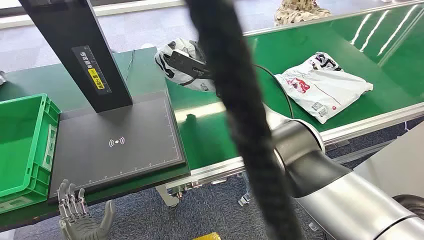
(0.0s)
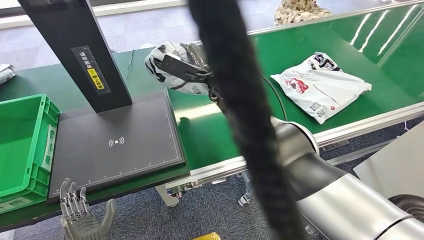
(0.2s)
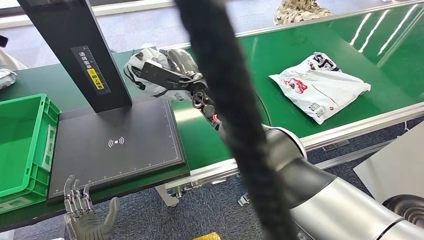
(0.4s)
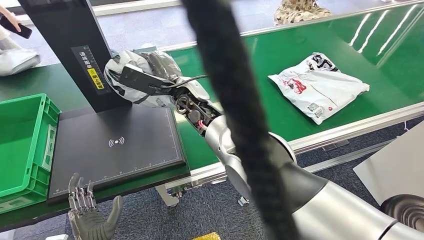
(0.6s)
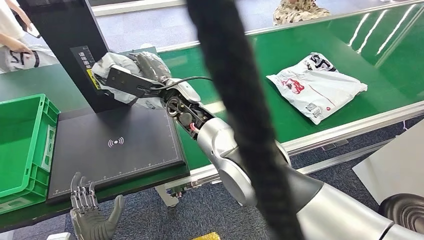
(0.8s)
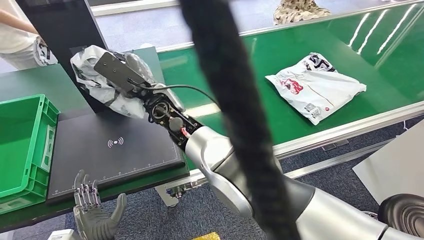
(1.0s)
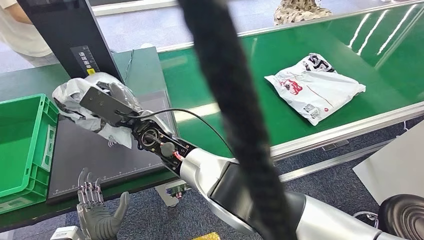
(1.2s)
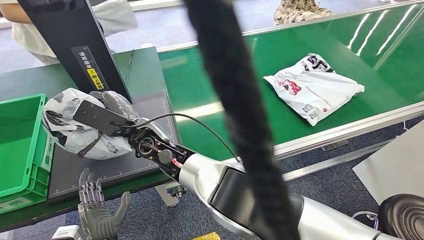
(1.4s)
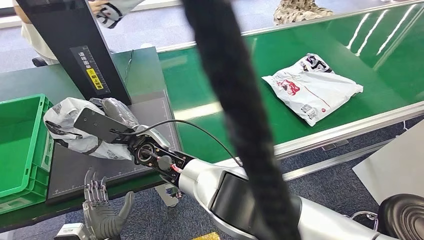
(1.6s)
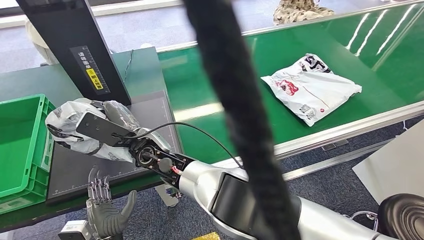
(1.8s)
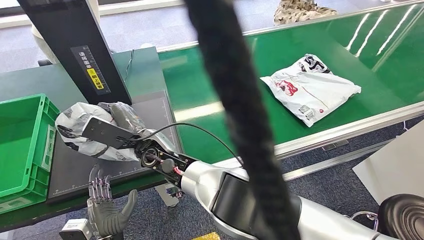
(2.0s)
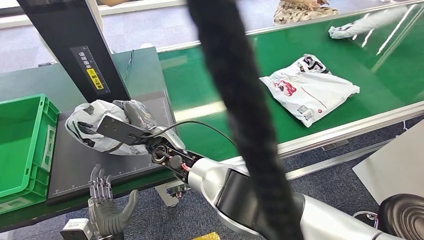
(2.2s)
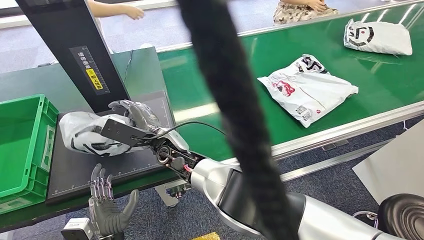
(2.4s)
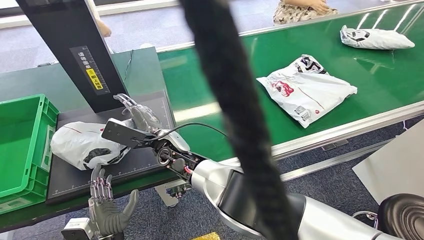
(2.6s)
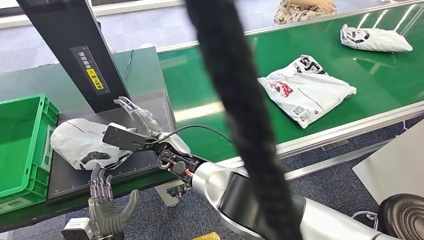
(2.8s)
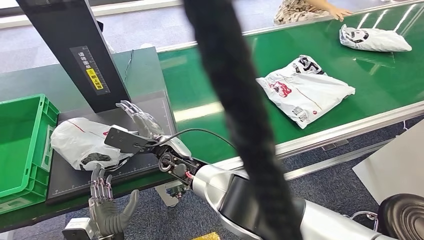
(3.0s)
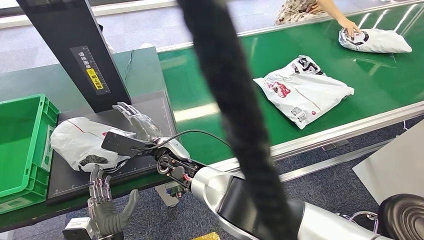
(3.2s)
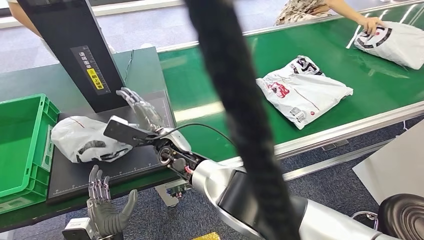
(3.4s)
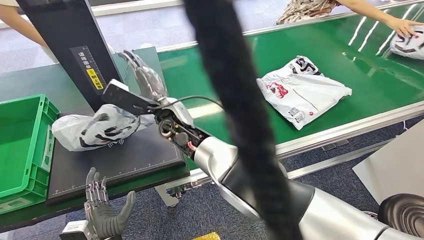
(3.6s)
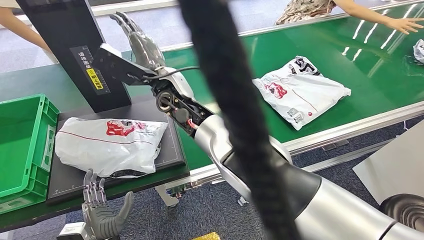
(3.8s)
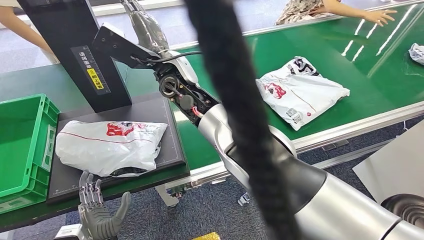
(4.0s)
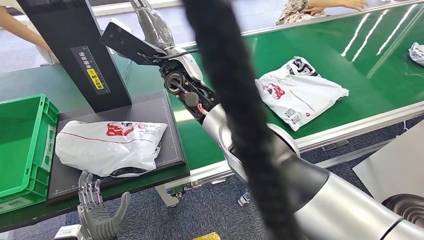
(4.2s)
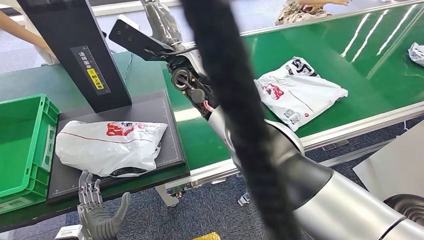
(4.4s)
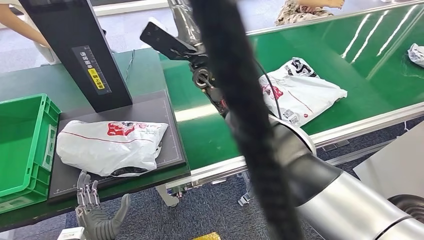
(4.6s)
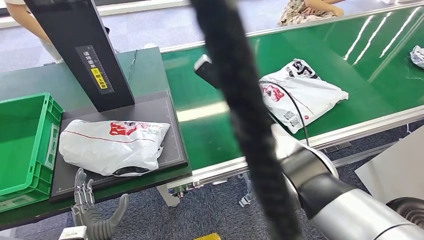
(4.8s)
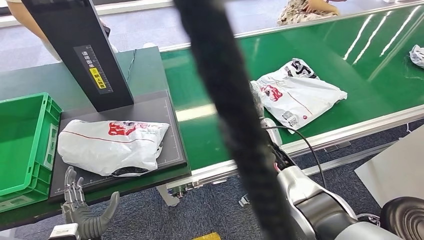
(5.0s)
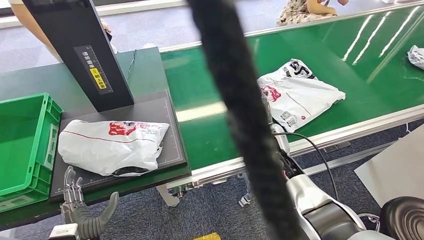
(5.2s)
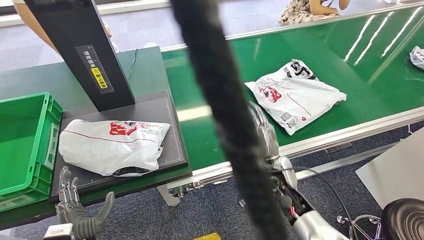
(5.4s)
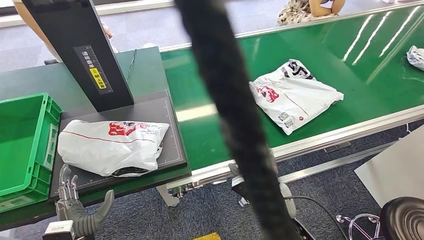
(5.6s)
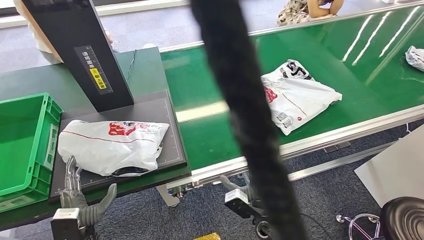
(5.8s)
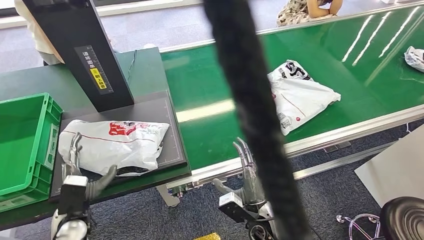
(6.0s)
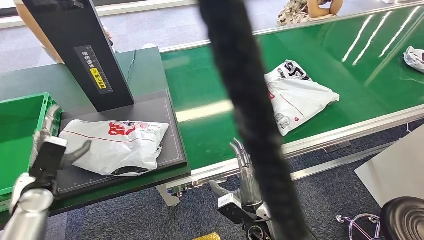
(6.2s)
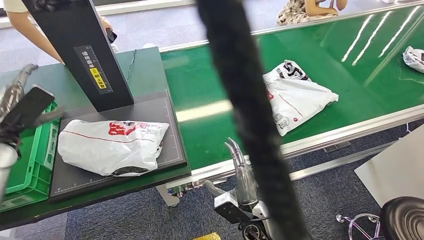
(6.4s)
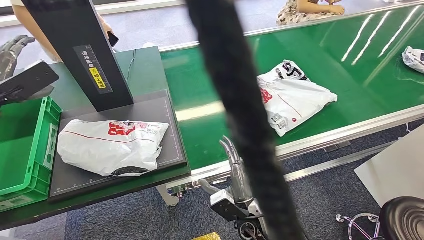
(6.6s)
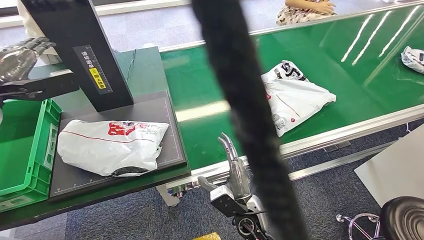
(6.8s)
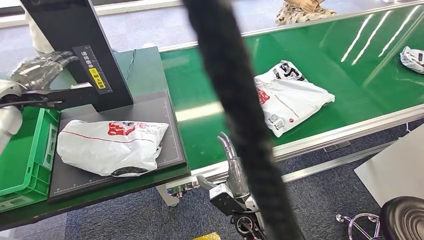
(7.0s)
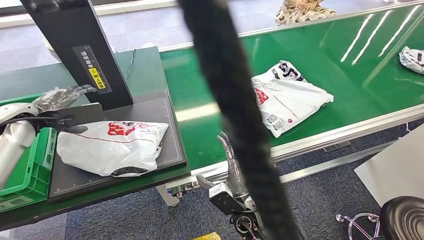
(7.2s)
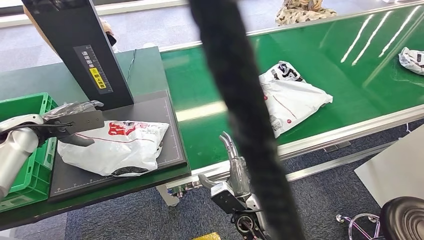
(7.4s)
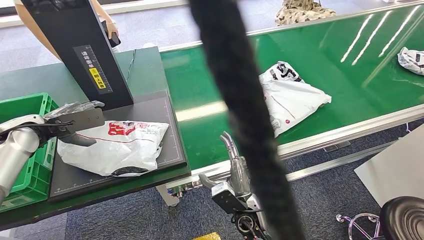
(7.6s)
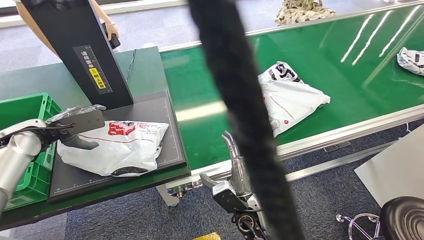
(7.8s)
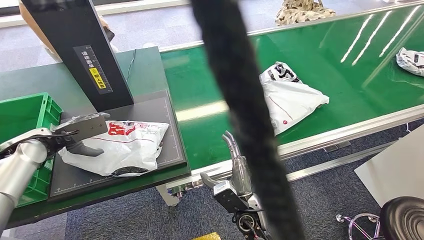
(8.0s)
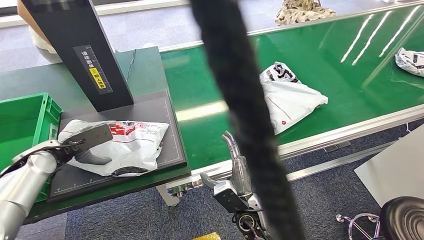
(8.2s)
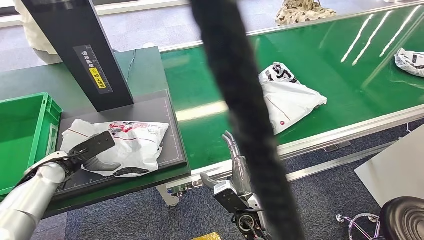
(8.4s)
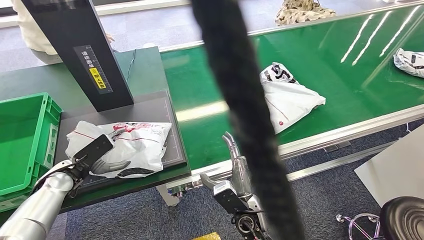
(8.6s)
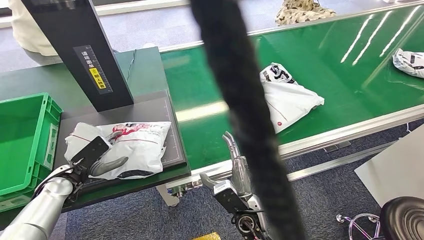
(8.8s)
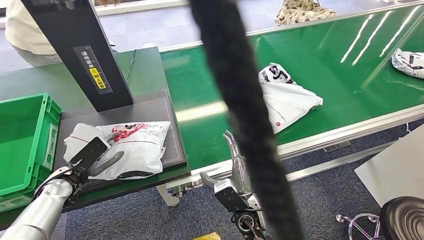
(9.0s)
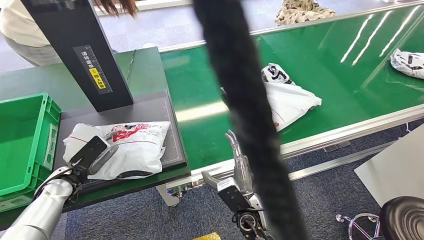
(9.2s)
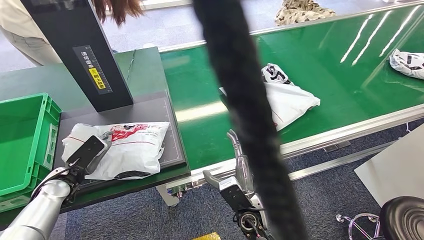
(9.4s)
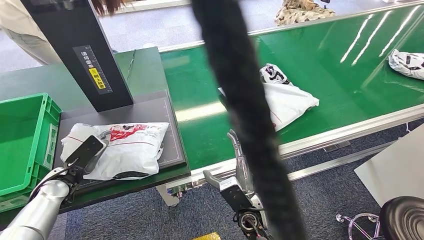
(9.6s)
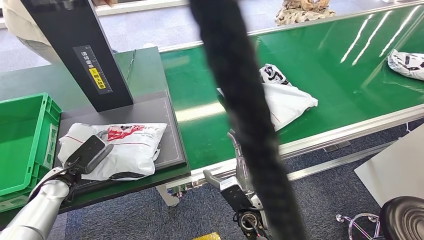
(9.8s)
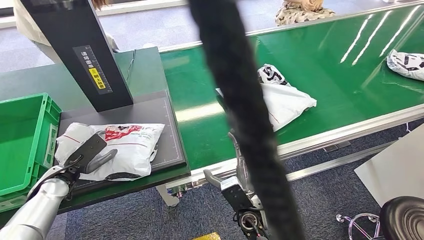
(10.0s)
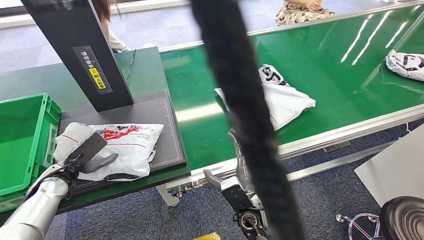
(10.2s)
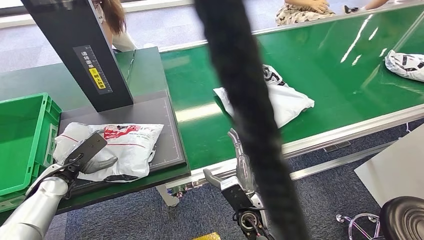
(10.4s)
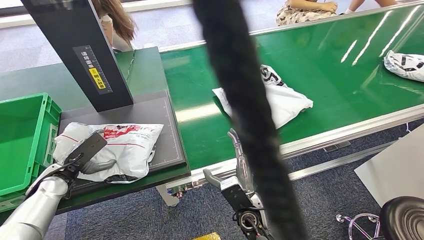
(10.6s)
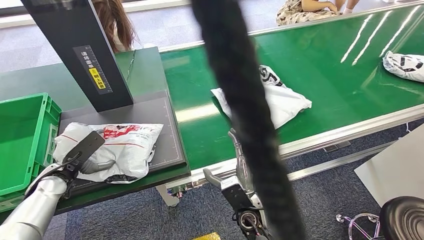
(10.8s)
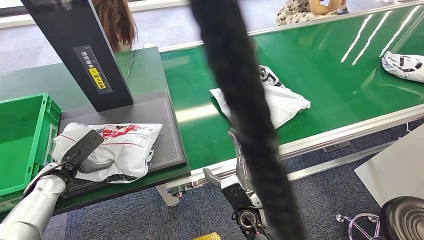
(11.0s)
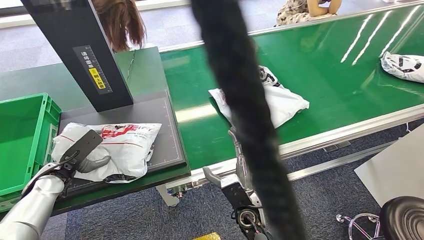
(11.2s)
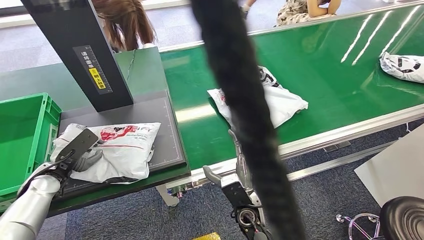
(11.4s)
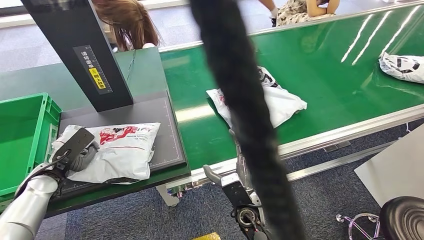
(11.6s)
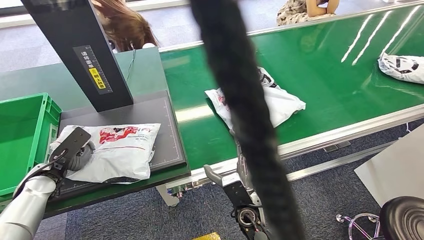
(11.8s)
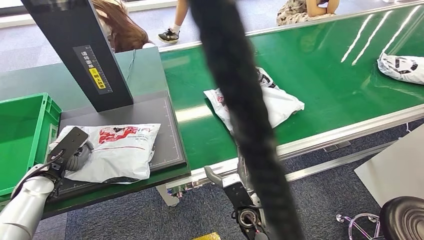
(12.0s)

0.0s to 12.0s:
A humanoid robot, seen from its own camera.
Step, 0.0s to 0.4s: Pick up the package from the conveyor belt.
Step, 0.6s to 5.0s: Place the package onto the inbound machine.
7.6s to 9.0s: The left hand moves downward, about 15 cm.
10.4s to 12.0s: The hands stay close to where they were, moving slightly.

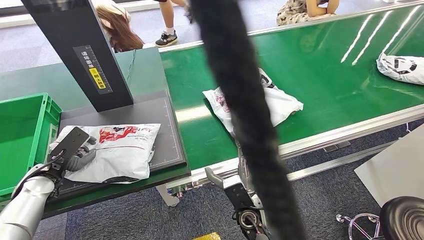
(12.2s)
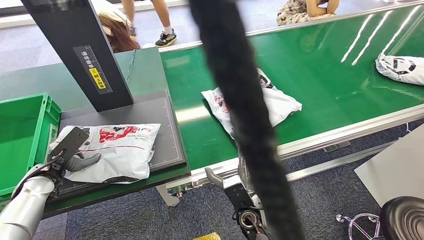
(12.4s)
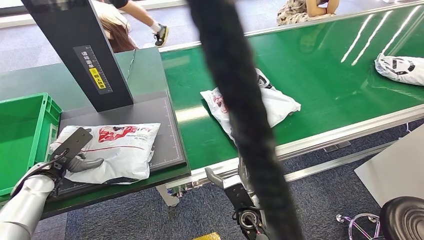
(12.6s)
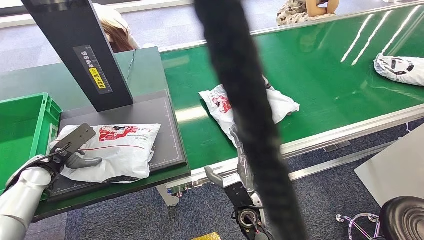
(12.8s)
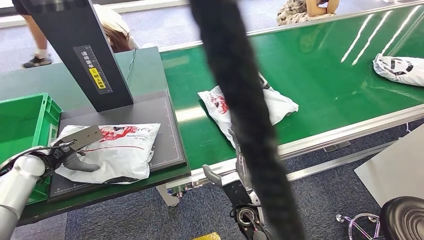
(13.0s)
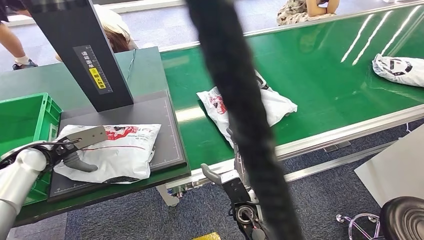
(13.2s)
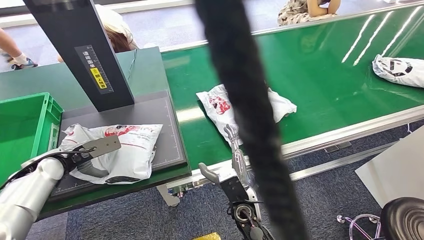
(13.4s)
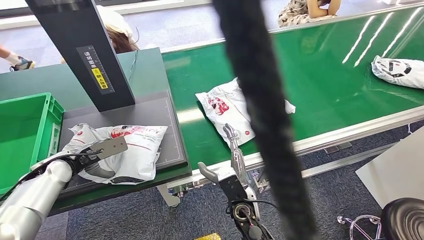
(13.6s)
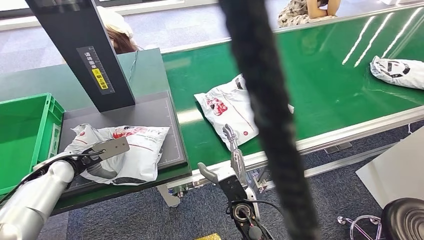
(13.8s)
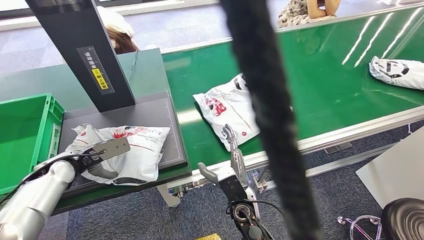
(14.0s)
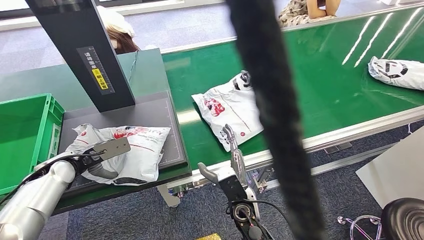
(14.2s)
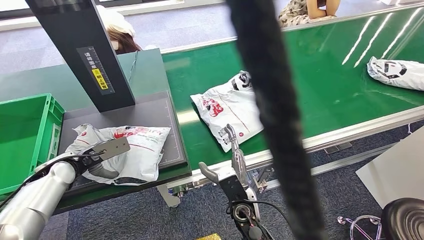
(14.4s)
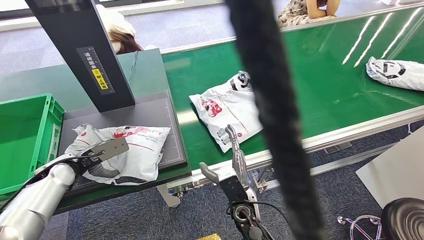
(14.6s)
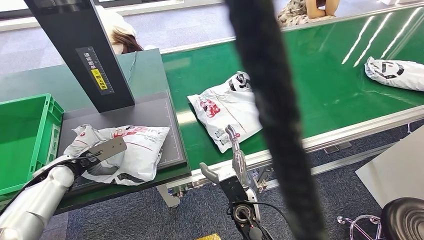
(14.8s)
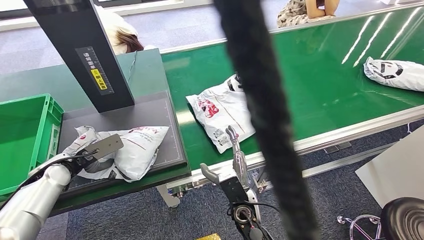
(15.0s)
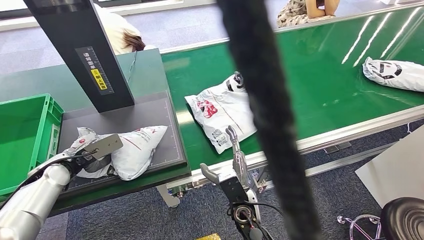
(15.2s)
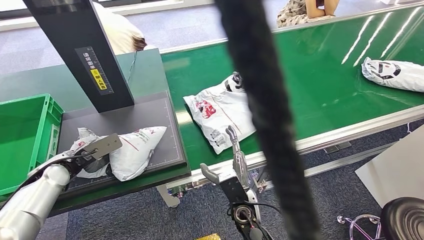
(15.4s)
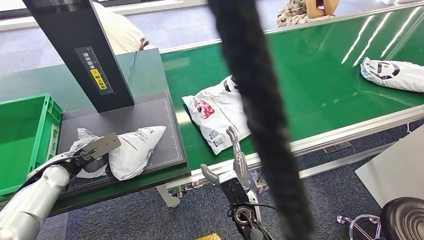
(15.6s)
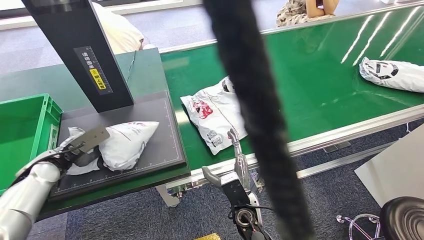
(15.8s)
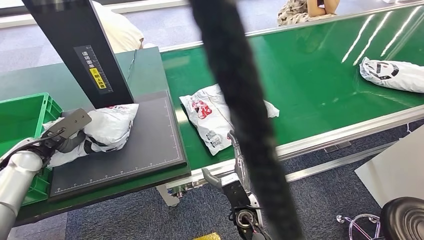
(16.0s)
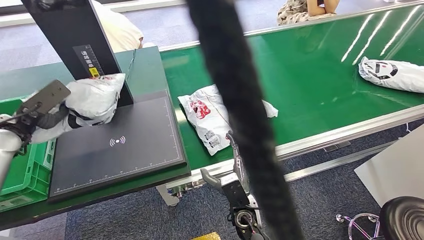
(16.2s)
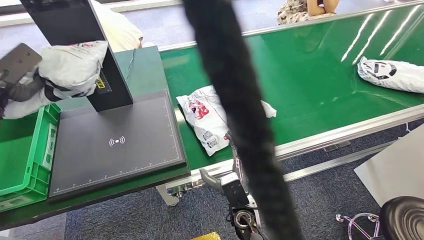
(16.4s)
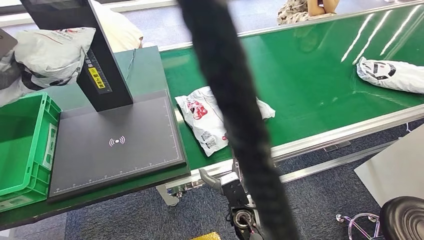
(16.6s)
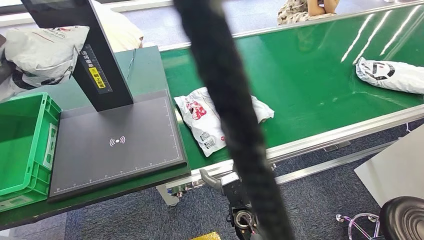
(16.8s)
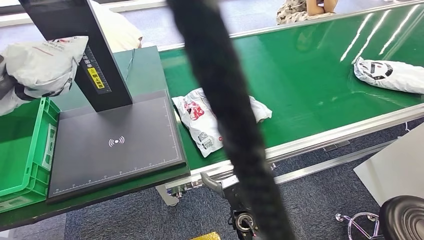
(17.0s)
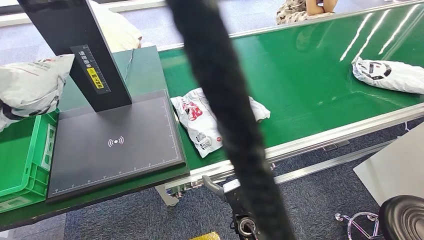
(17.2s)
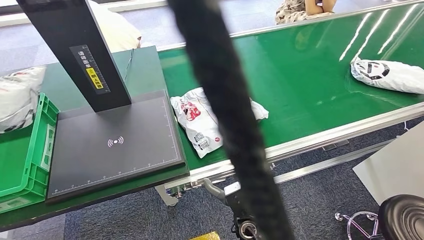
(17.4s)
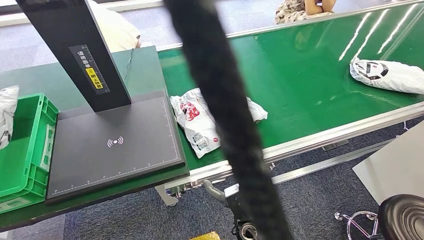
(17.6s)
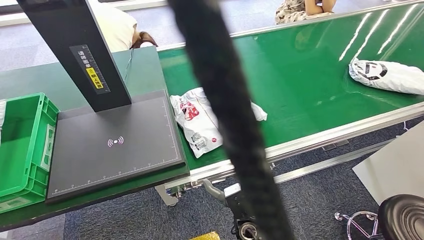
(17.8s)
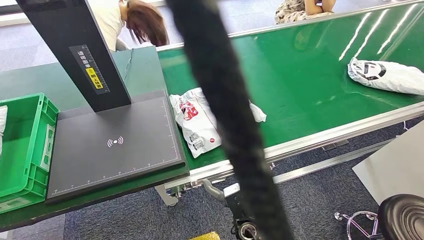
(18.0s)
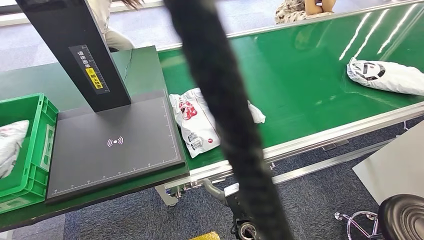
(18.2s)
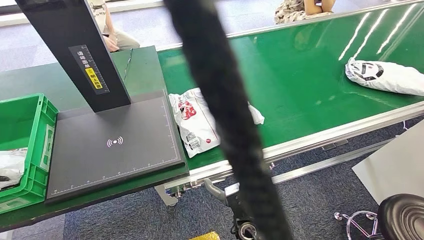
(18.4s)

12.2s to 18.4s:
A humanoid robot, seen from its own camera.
Step, 12.2s to 16.2s: Pick up the package from the inbound machine.
13.8s to 15.4s: The hands move only a little.
